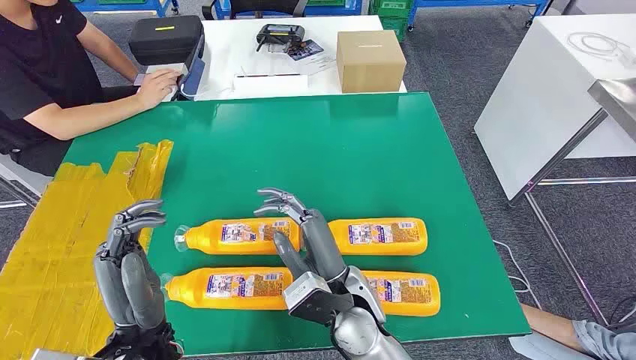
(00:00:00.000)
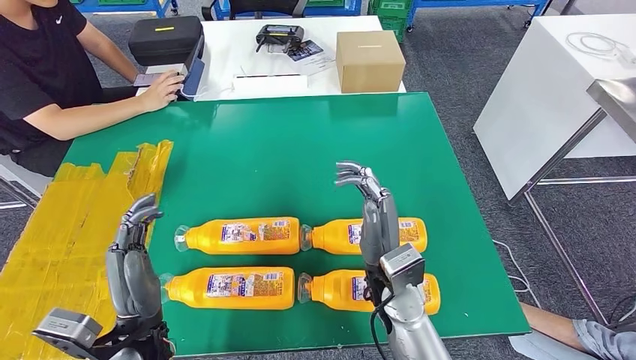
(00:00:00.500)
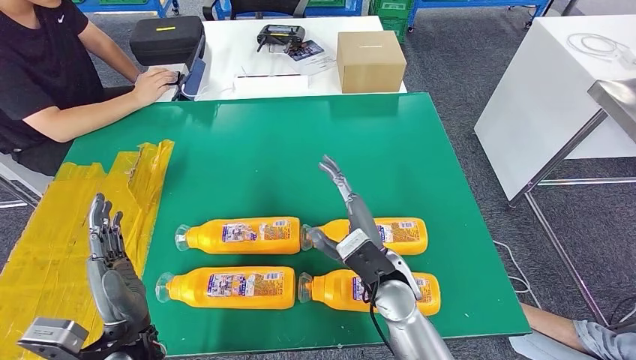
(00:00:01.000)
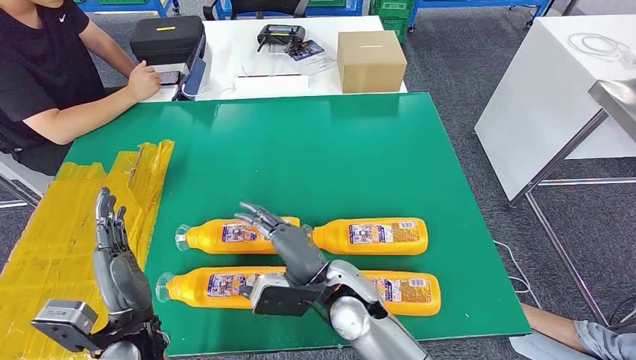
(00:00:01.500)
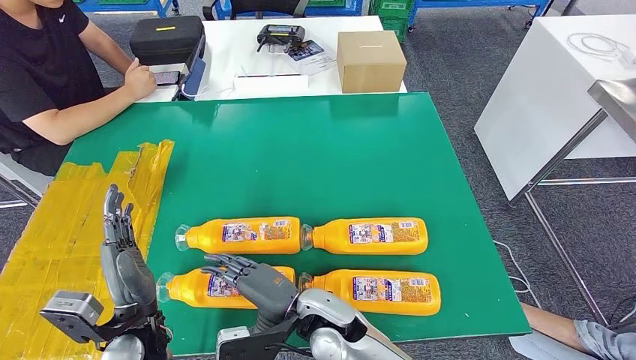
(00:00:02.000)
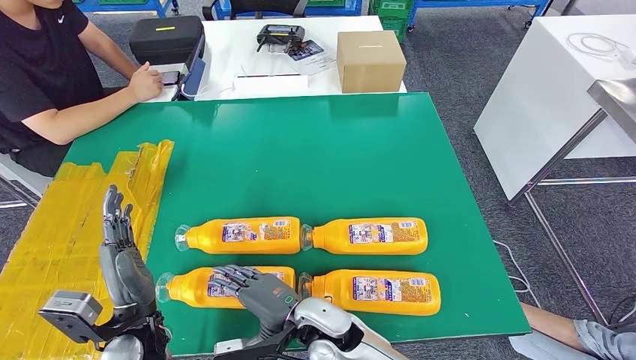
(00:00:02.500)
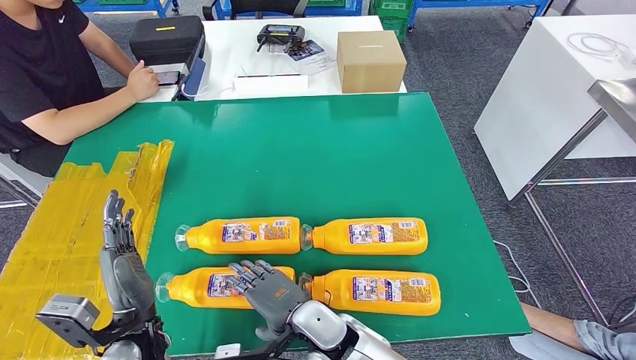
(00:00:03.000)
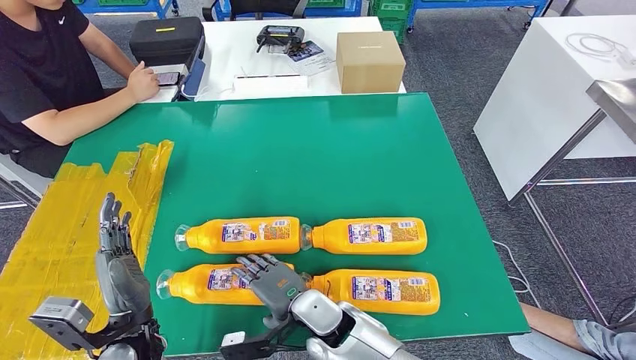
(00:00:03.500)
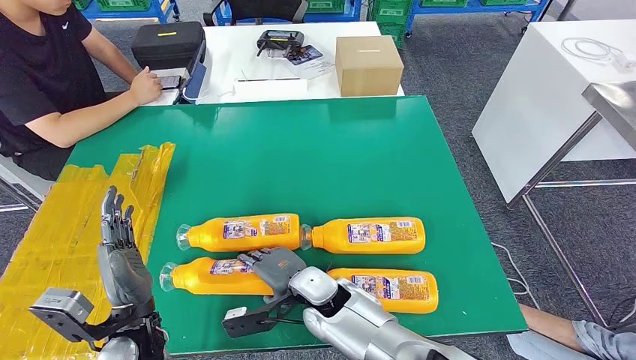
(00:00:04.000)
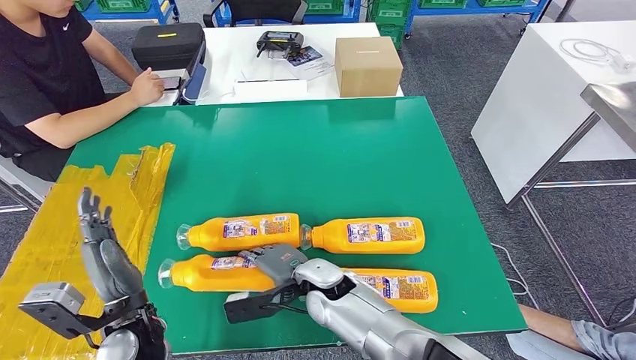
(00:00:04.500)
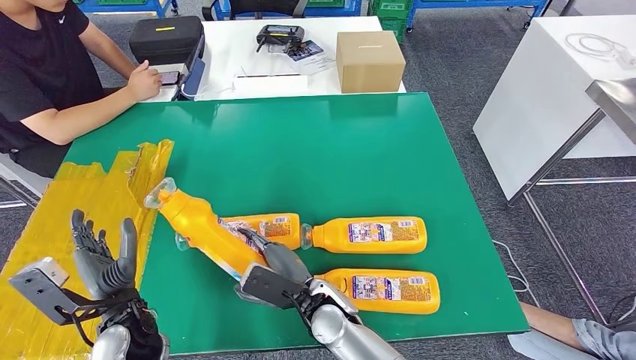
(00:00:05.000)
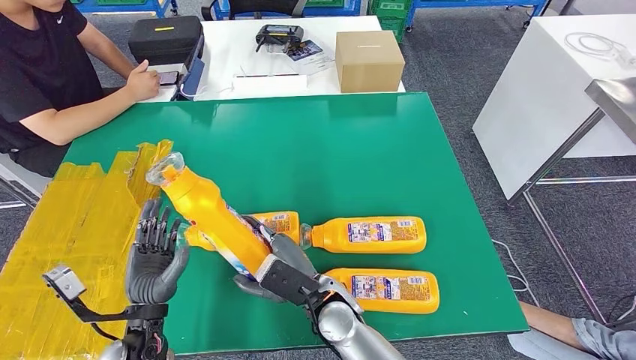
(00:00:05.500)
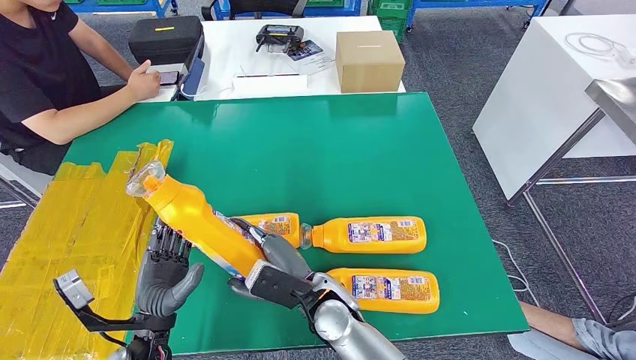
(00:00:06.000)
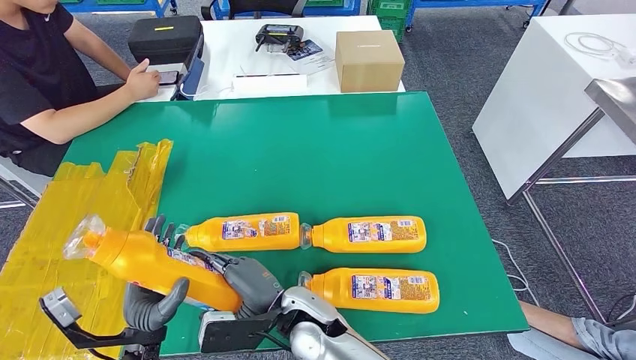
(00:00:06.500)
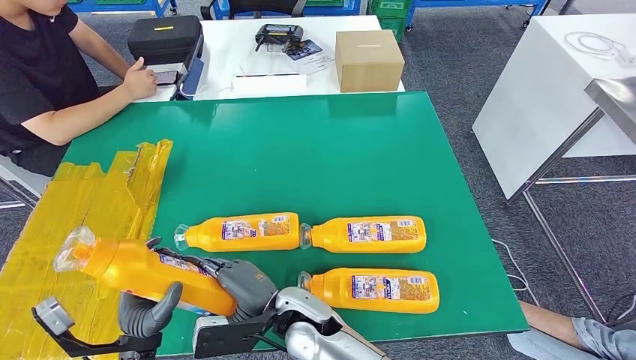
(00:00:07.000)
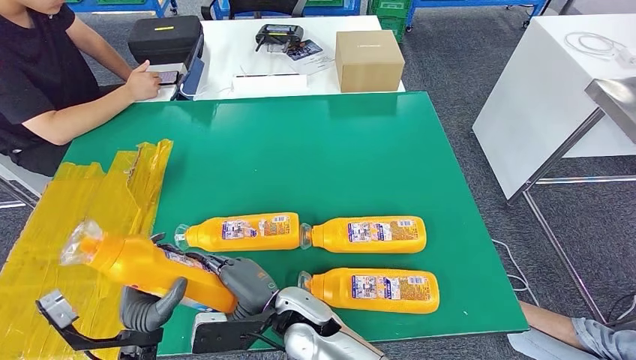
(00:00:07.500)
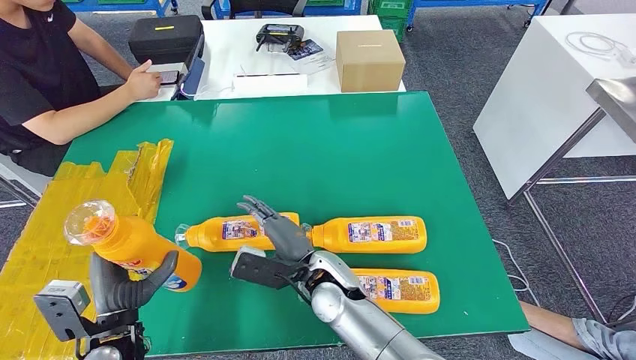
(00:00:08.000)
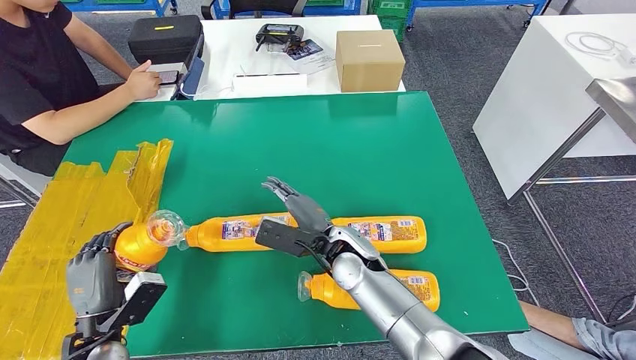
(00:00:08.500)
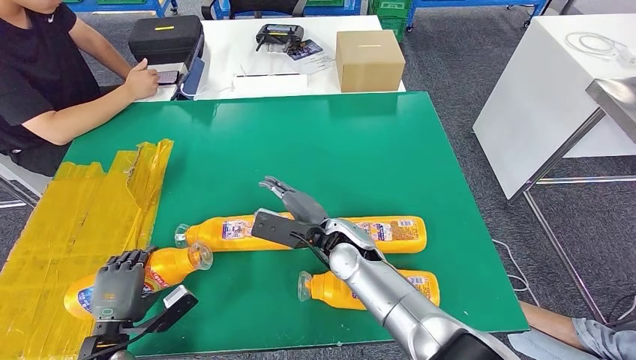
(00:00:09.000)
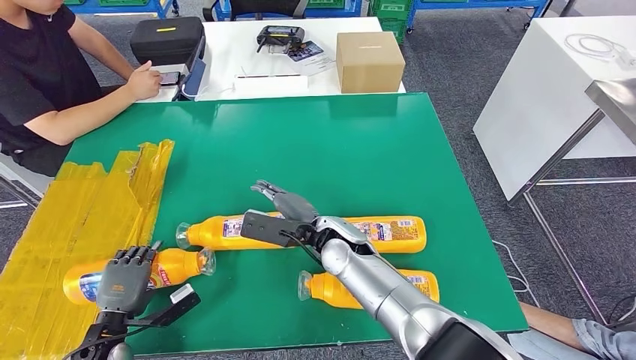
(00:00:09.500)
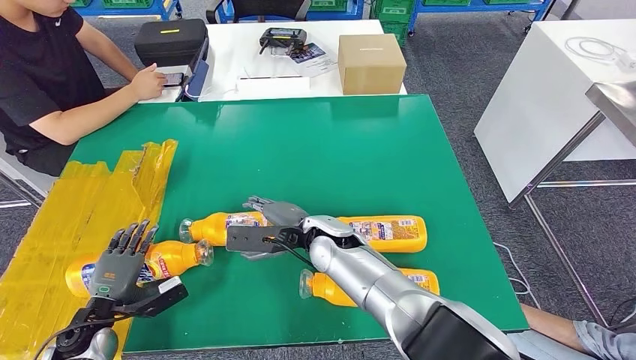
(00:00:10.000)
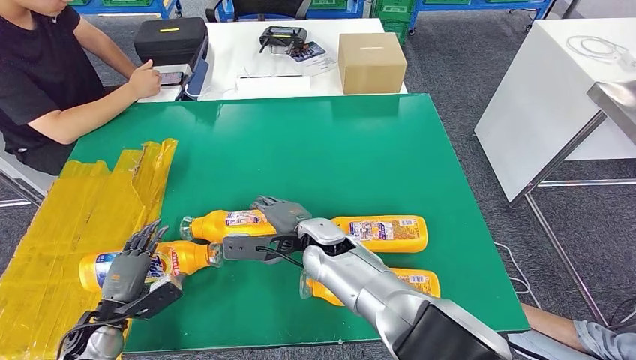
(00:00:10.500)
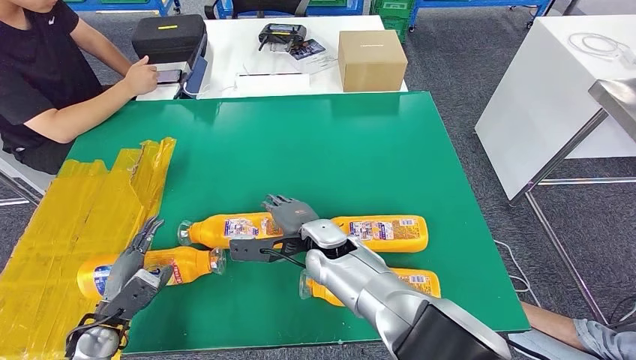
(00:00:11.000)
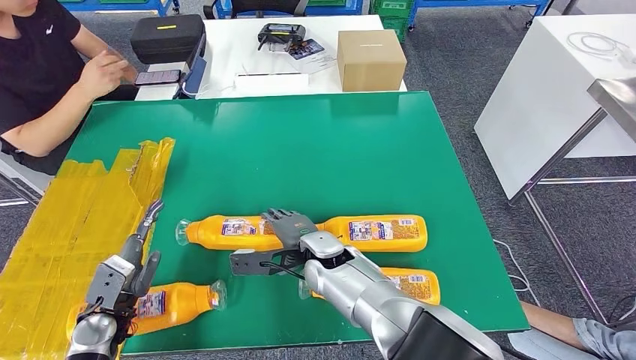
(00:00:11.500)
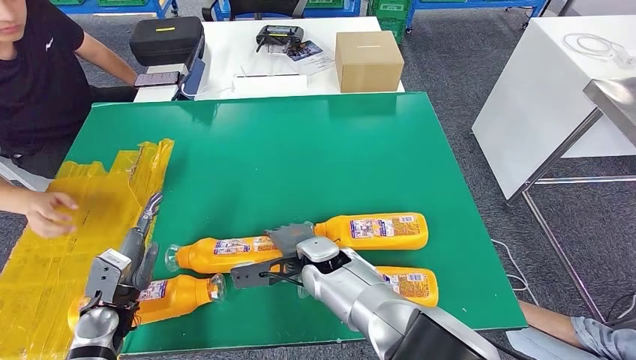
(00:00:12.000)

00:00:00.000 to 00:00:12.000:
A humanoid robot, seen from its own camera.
Step, 00:00:00.000 to 00:00:07.000: Take the fast-moving consumer goods bottle from the table.

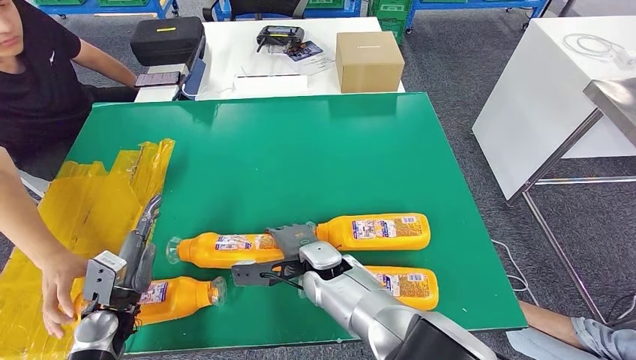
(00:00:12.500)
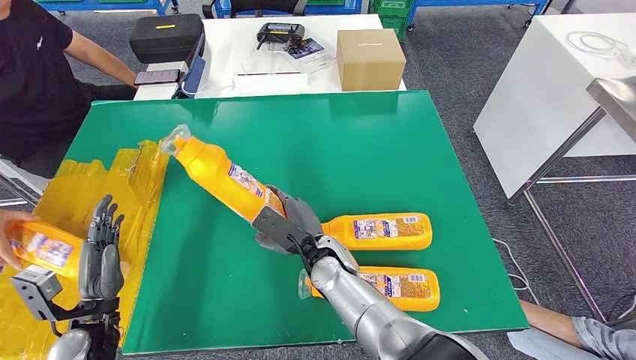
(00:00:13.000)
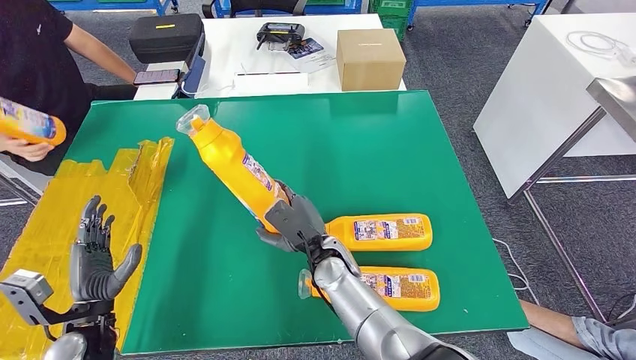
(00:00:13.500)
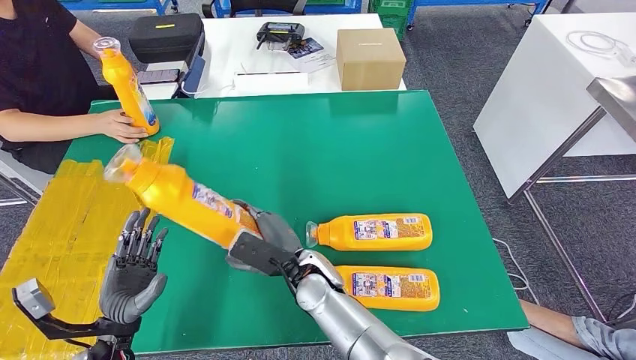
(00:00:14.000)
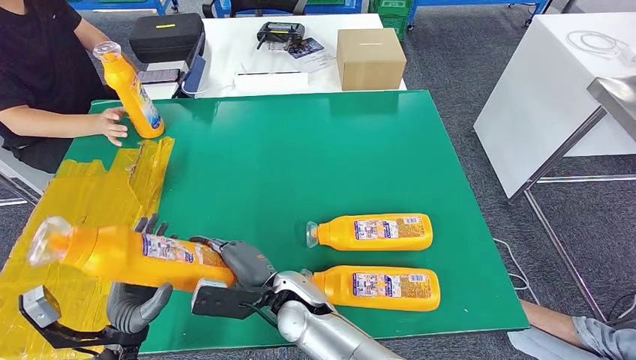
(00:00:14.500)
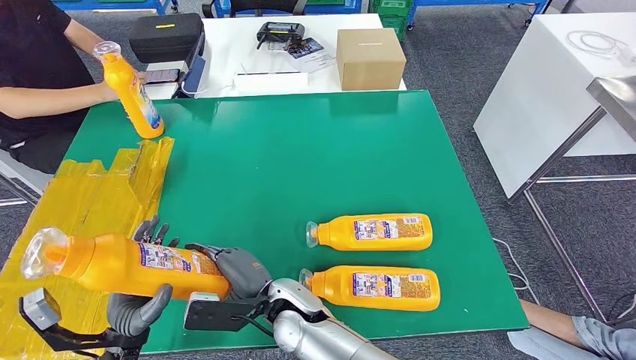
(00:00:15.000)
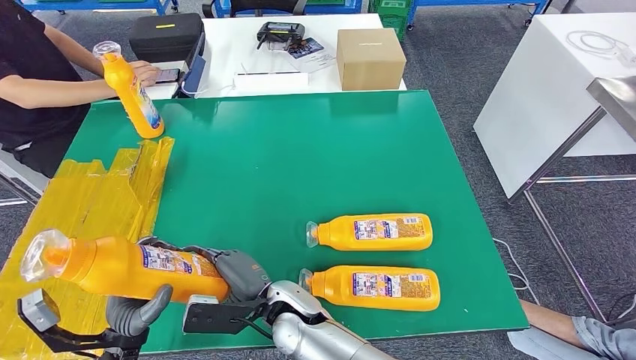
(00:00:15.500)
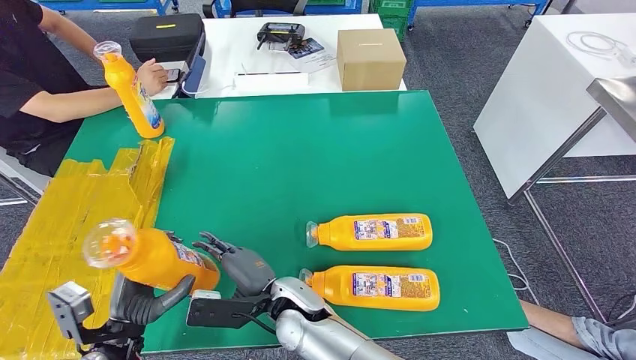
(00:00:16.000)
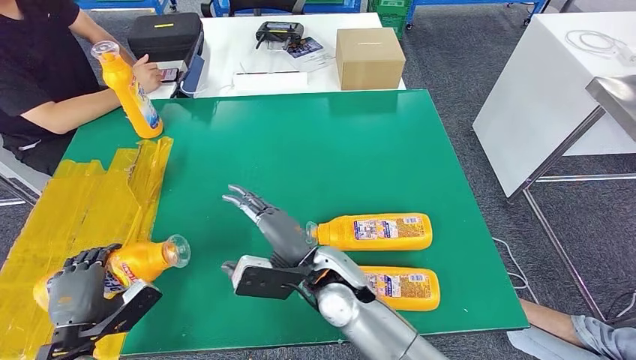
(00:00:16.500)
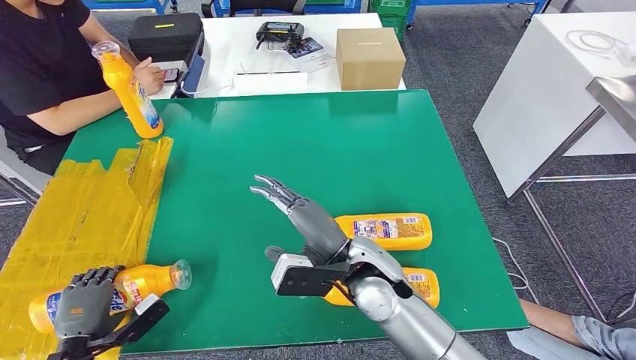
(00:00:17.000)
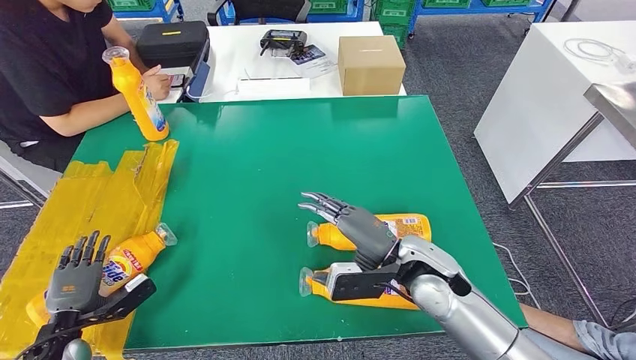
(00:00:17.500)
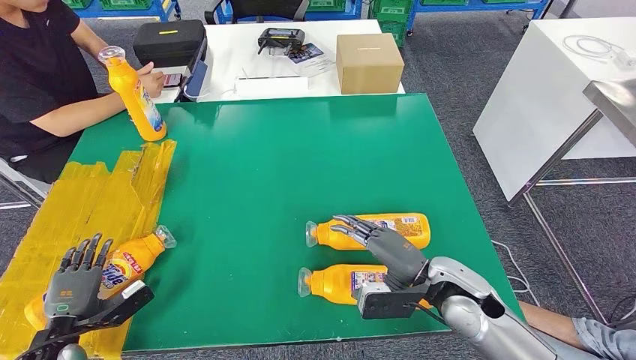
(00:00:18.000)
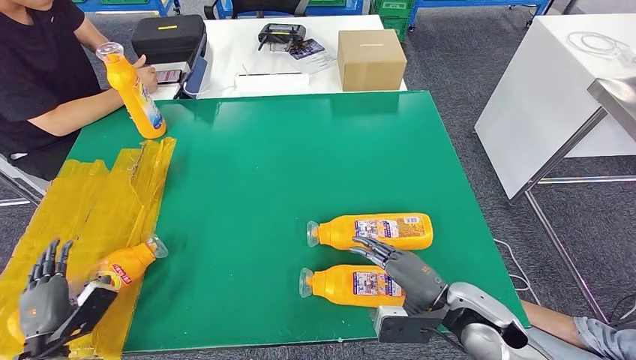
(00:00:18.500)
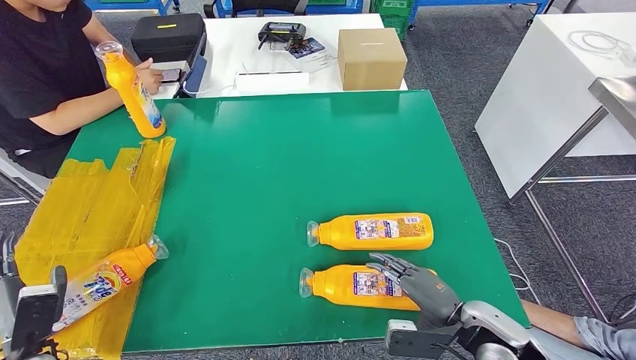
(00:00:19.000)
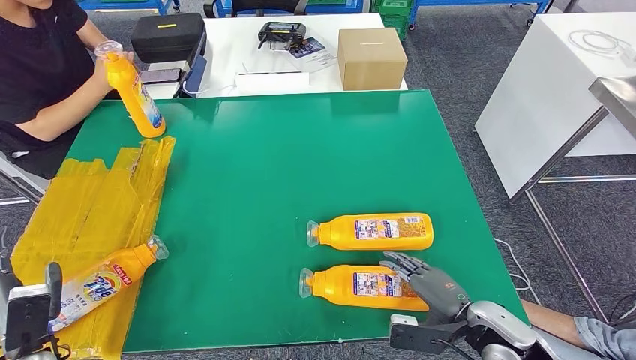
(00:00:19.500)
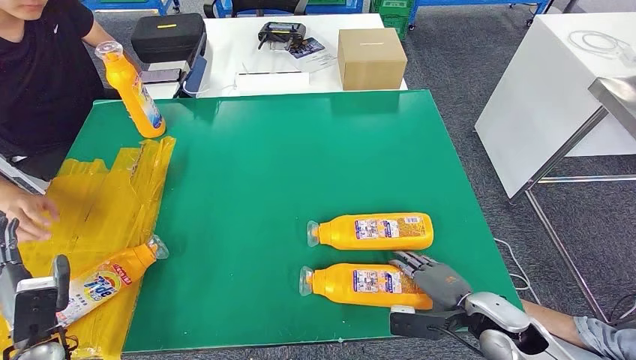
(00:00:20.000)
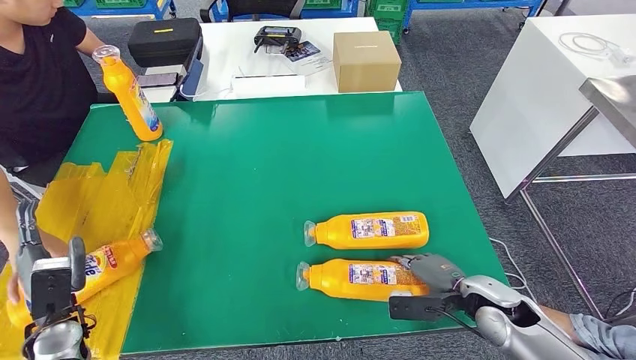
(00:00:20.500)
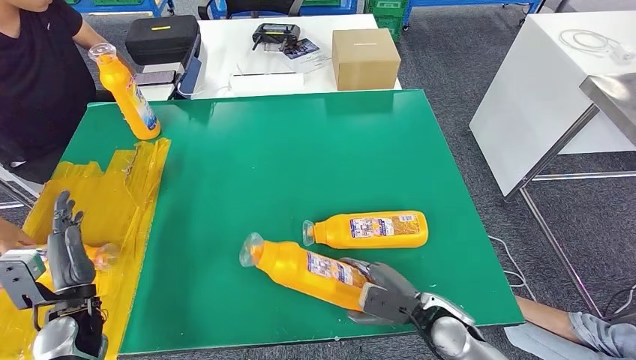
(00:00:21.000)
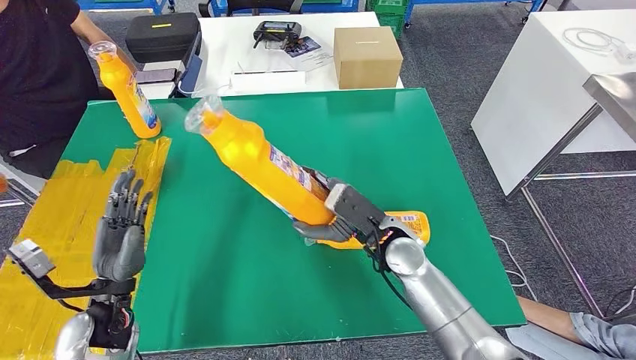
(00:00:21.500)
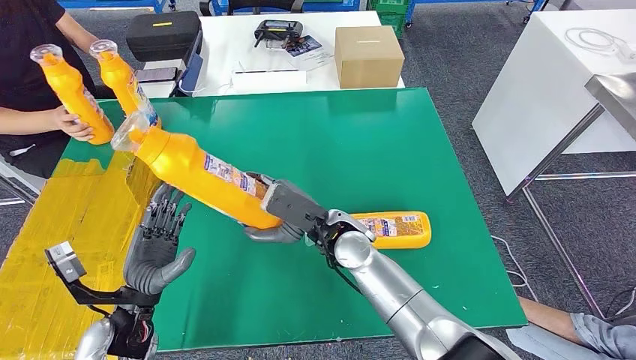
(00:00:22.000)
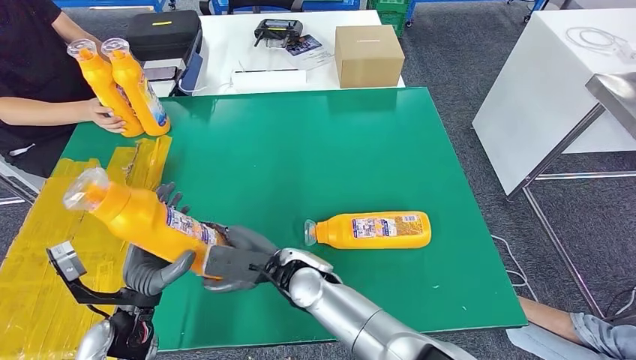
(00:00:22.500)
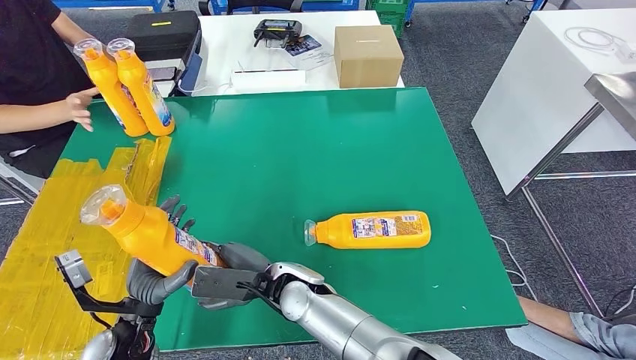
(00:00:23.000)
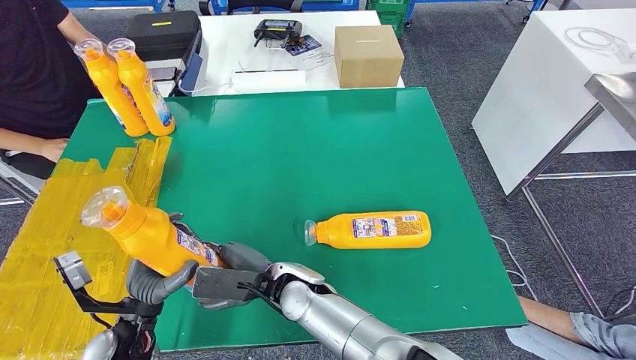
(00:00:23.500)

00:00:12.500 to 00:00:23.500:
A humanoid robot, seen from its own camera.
Step, 00:00:13.000 to 00:00:16.000: Pick up the fast-moving consumer goods bottle from the table.
Step, 00:00:16.500 to 00:00:19.500: Flip the fast-moving consumer goods bottle to the front side.
Step, 00:00:20.000 to 00:00:22.000: Pick up the fast-moving consumer goods bottle from the table.
